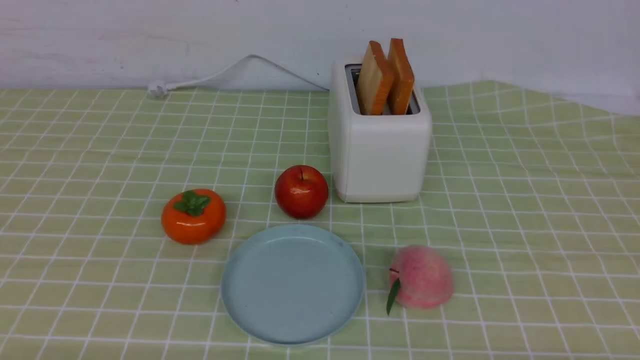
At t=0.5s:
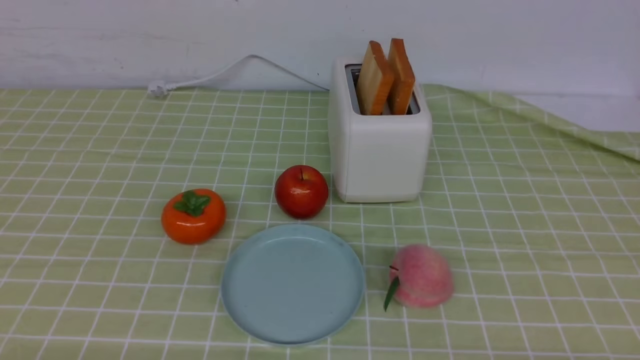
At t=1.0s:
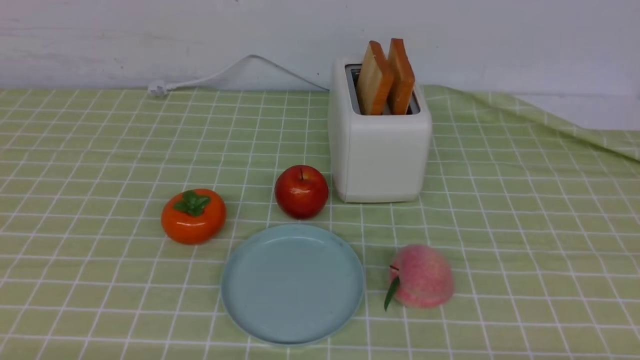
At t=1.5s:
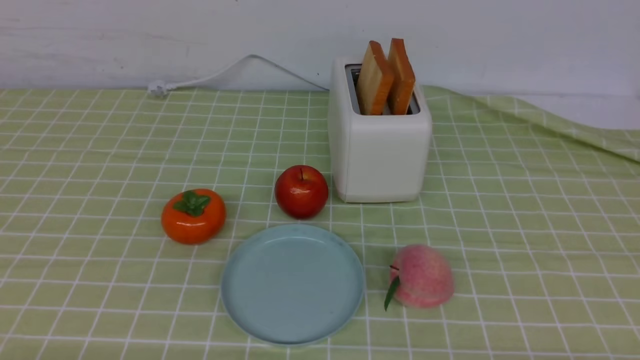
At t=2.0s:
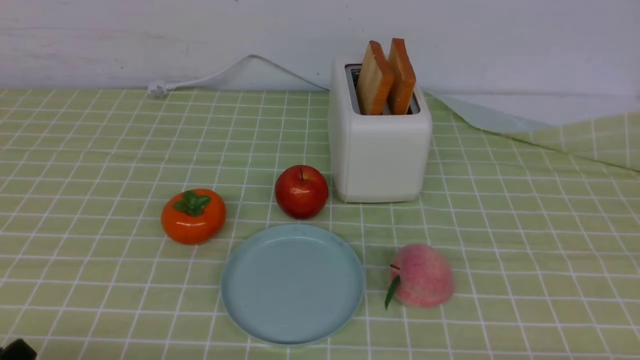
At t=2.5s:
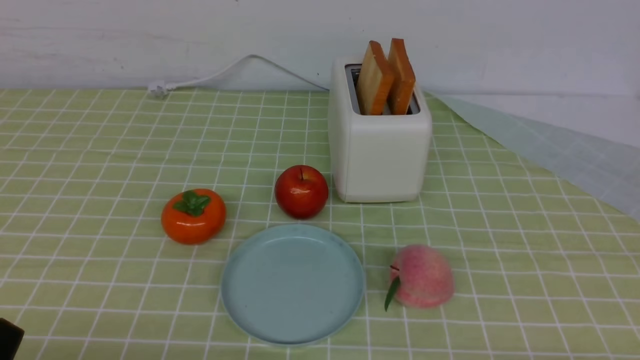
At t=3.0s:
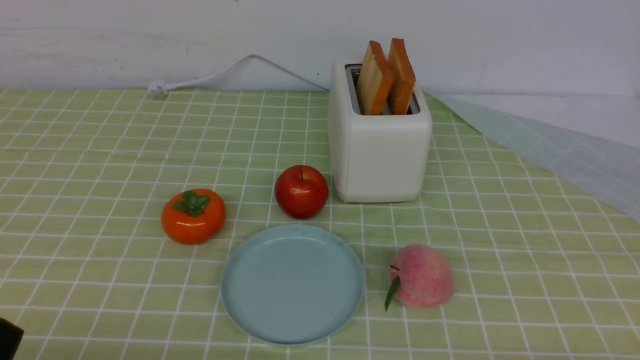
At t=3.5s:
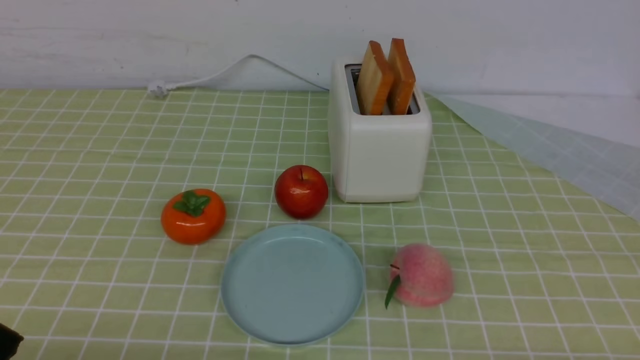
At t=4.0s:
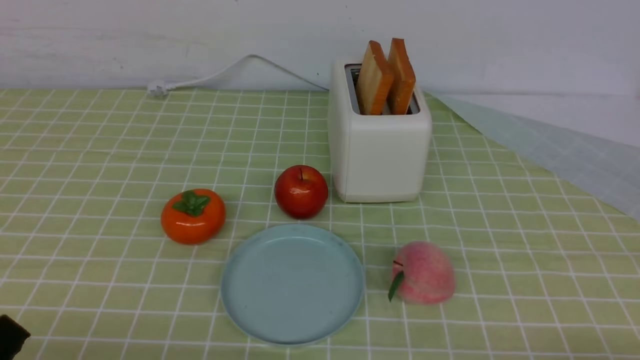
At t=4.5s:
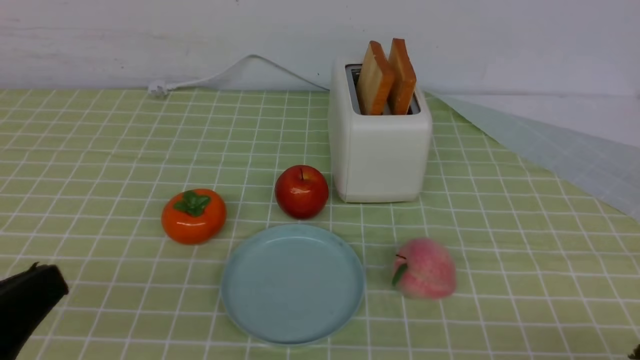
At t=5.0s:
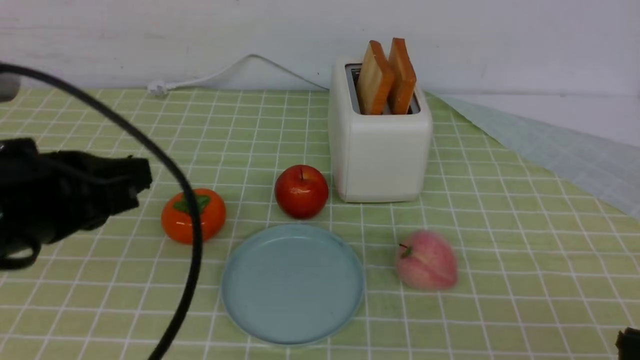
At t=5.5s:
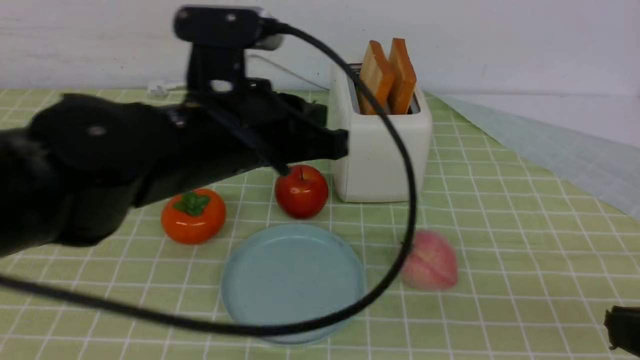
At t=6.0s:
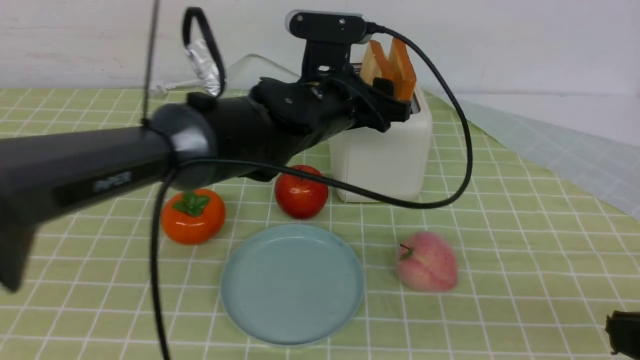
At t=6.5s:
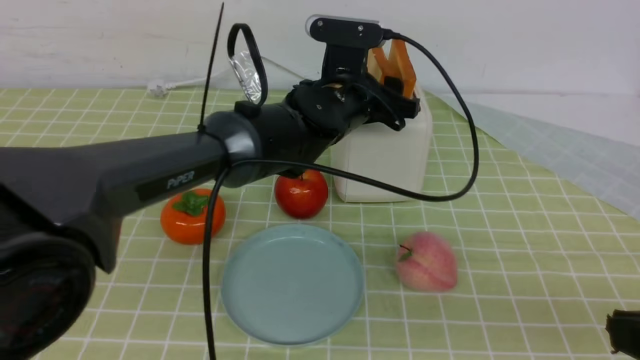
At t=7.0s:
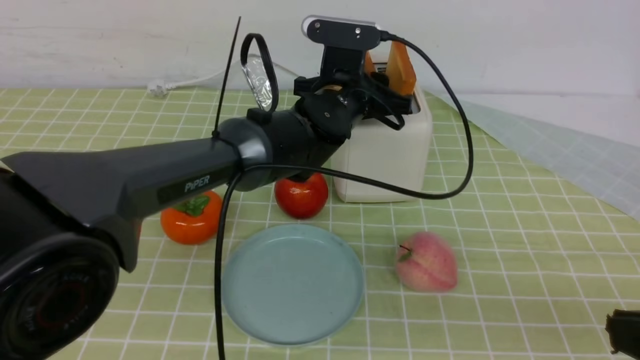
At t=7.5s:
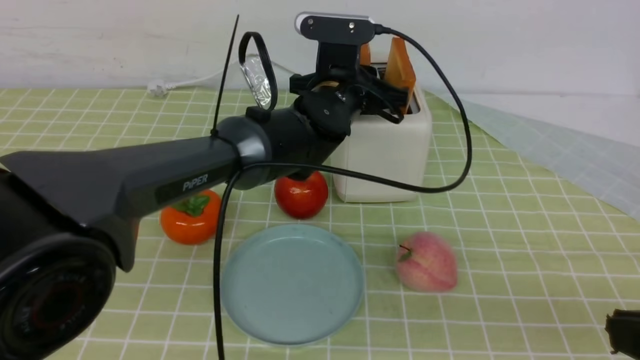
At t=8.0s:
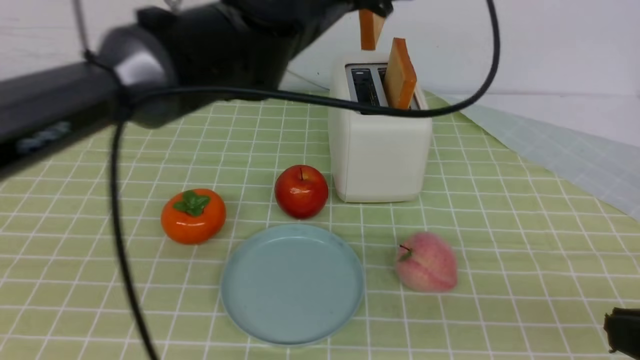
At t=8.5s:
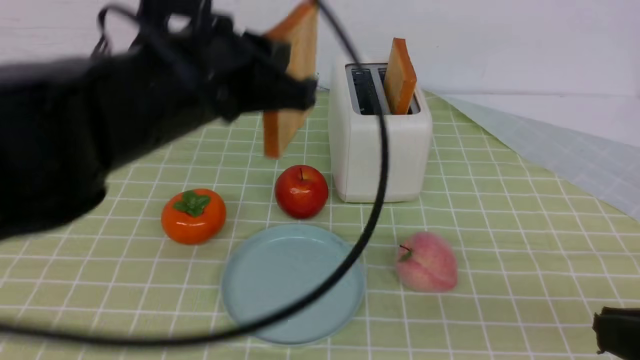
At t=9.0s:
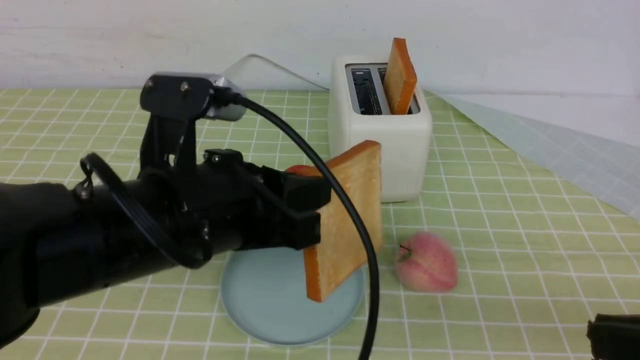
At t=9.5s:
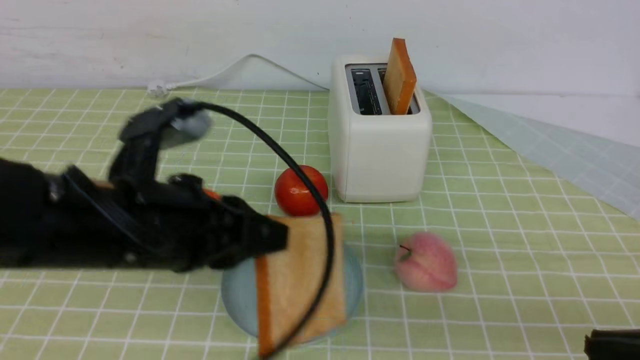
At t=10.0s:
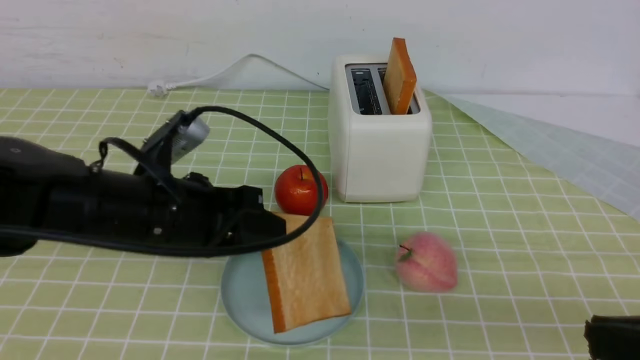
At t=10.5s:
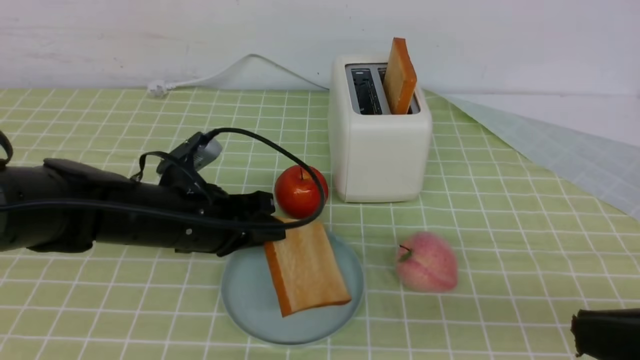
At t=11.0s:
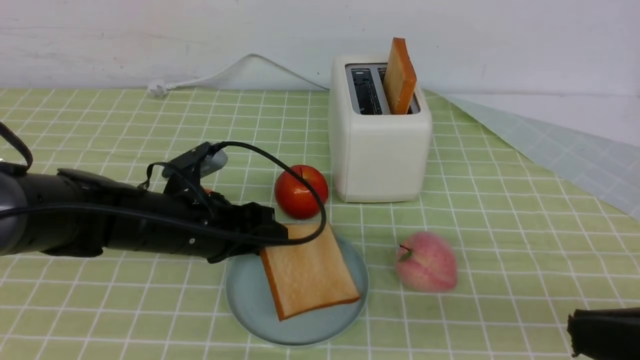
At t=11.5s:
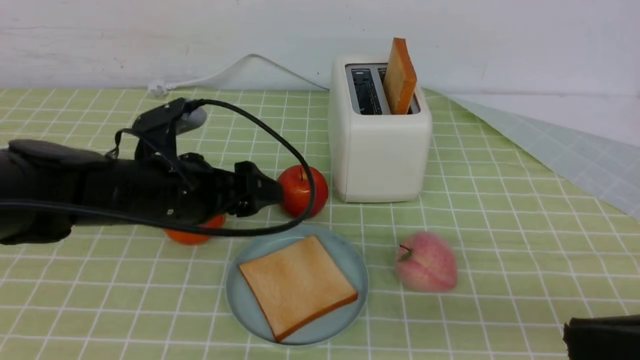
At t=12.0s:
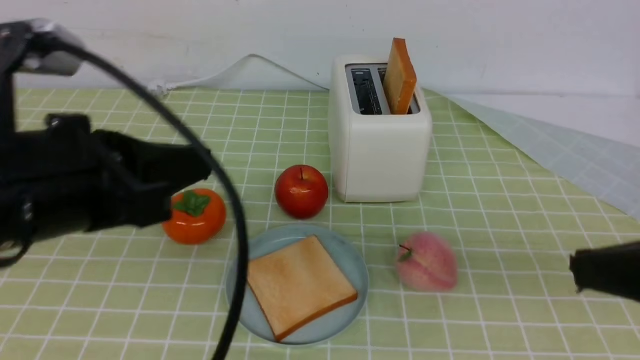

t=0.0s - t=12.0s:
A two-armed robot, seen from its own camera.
Task of the whole recording: take toasted bread from bread machine on green coffee tablecloth place on plate.
Step, t=0.0s - t=7.5s: use the left arm to take out a slice of bread.
Step, t=8.0s - t=11.5s: use the left arm to put a slice of bread into the empty plate.
t=0.0s - t=2.0s: The grippers make only small movements.
t=4.0s - t=6.0s: The left gripper is displaced forward and to the right by roughly 40 cm, and opens up; the right gripper moves upward, about 15 cm, and closes up.
t=6.0s - t=8.0s: The left gripper is displaced upward by about 10 cm, and closes.
t=8.0s - t=10.0s: The left gripper heads downward, to the left and backward, covering some 20 cm.
t=10.0s - t=12.0s: The left gripper goes some 15 cm backward and upward, and opens, then closes again. Meanwhile the right gripper heads forward, covering about 5 cm.

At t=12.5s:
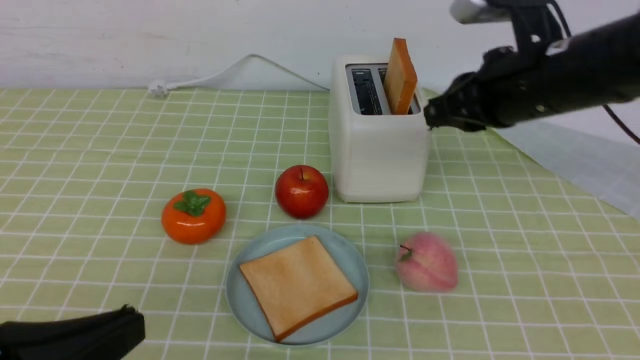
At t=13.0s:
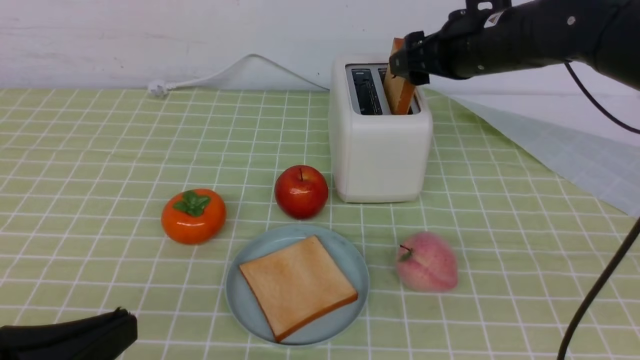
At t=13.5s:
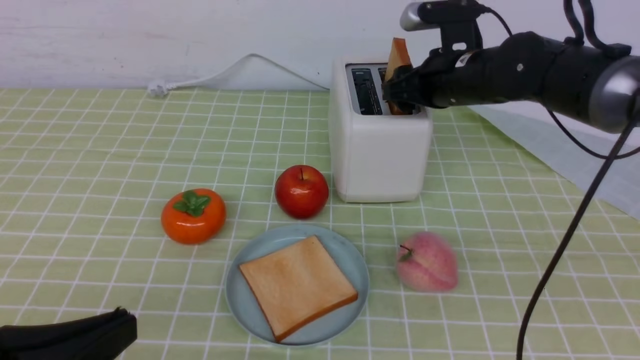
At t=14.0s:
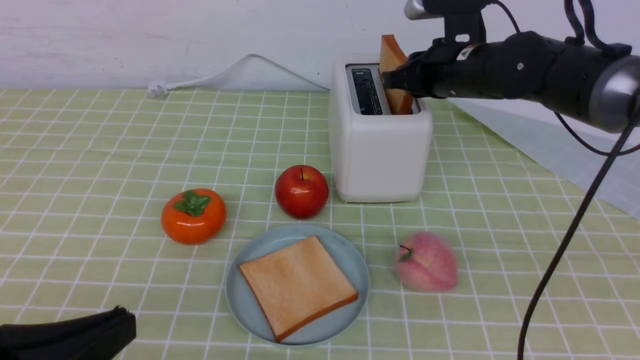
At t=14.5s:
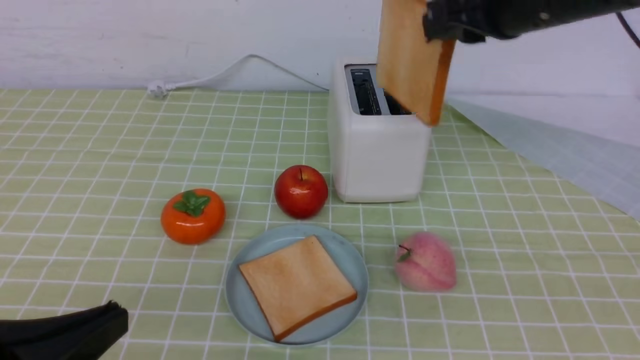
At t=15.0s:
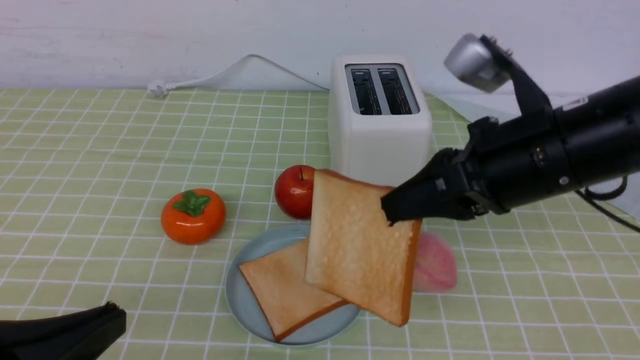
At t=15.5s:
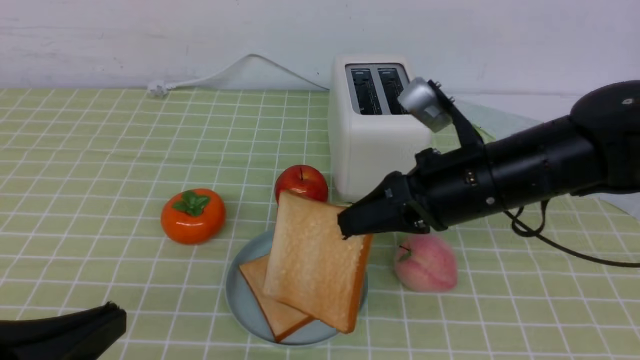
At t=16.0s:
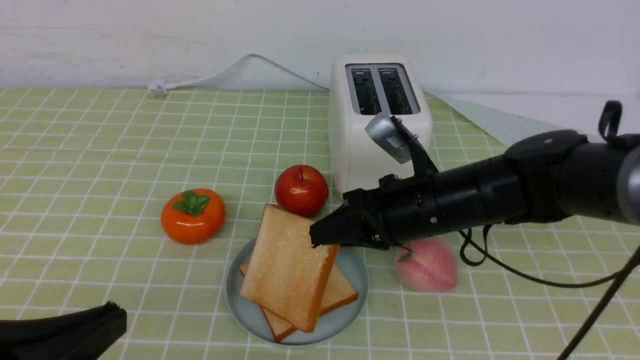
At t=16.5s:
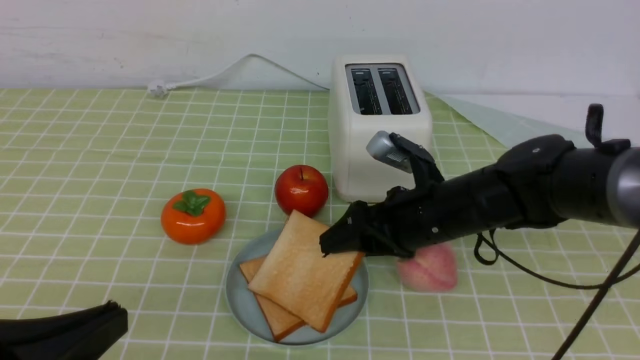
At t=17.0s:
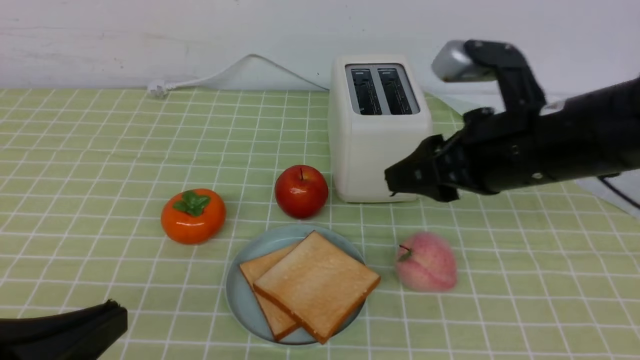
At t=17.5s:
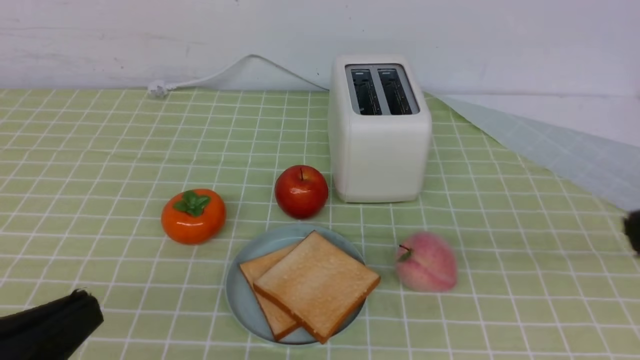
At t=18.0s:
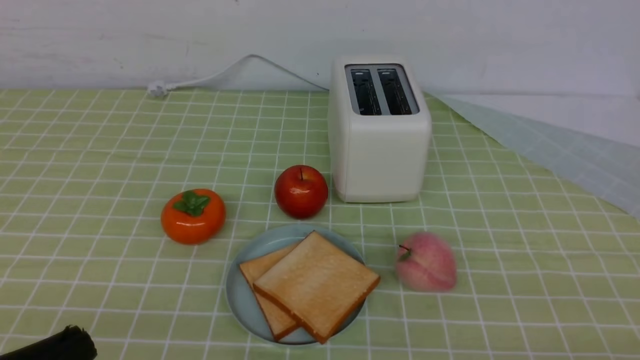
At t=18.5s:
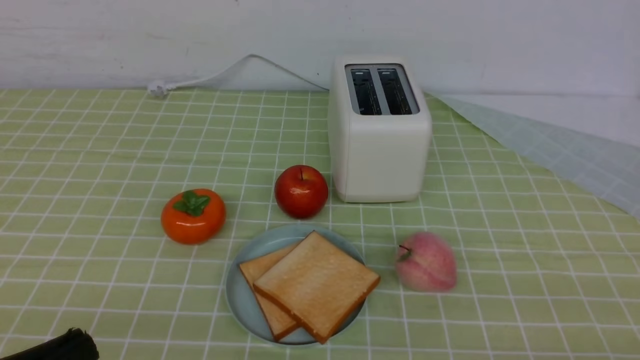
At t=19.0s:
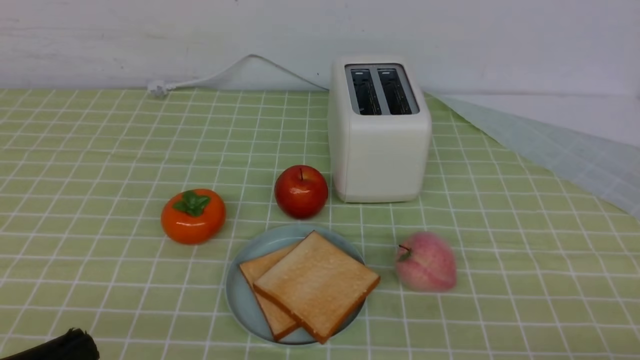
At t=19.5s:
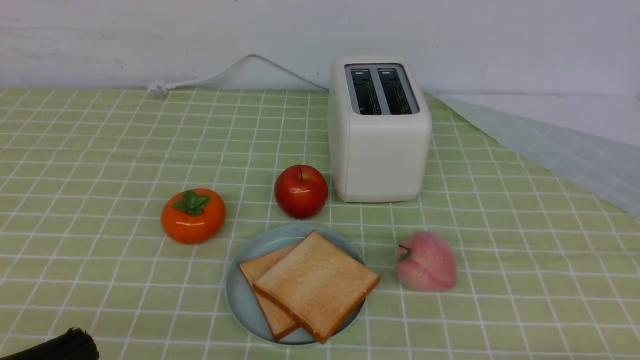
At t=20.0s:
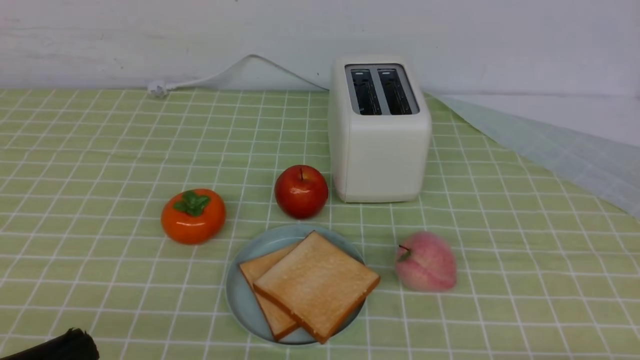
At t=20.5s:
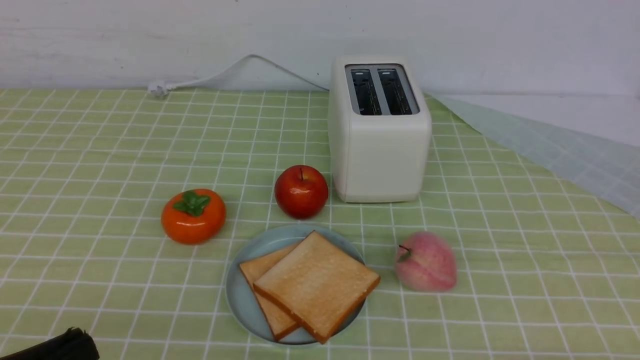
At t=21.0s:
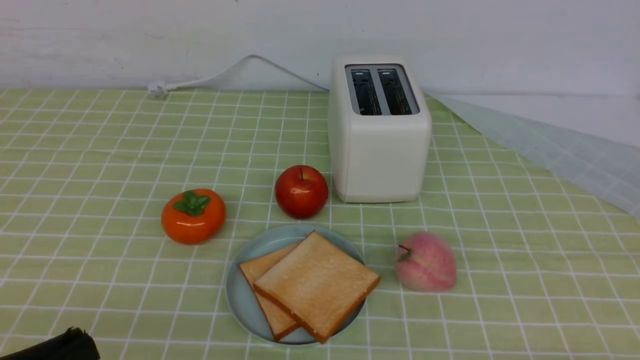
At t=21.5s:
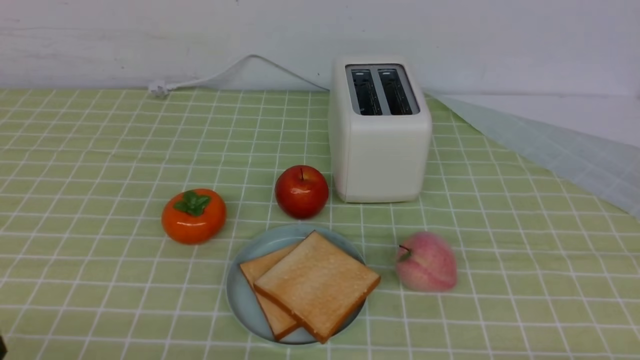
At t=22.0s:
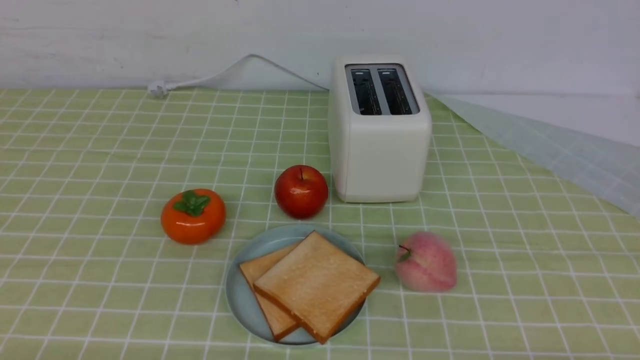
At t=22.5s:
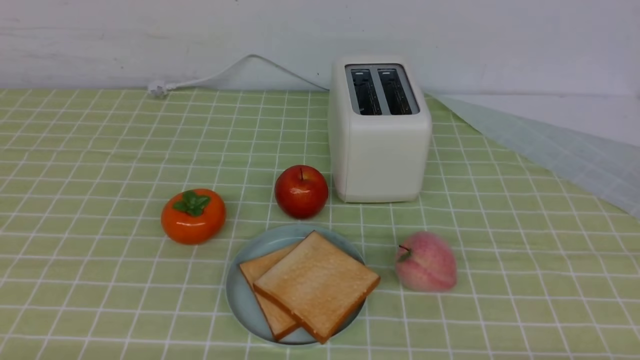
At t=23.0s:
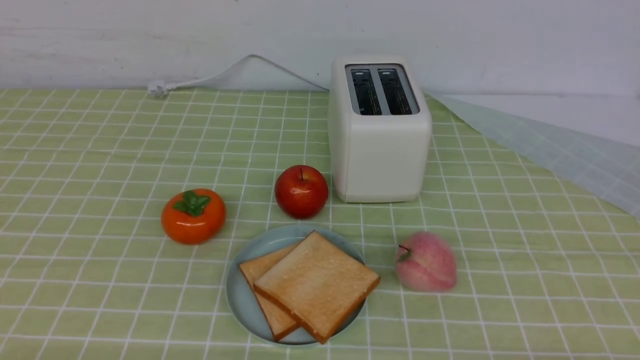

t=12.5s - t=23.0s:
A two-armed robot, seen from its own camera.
Task of the whole recording: take toasted bread from bread machine on green coffee tablecloth place on plate.
Step, t=12.5s - t=14.0s: use the right arm to take out a slice of bread.
Step, t=14.5s - t=16.5s: use the right arm to put a slice of bread into the plate.
t=12.5s - t=14.5s: The right gripper reaches some 10 cm forward, then returns, and opens, then closes once more.
t=14.5s - t=16.5s: The right gripper shifts approximately 20 cm downward, and opens.
t=16.5s - t=19.0s: The right gripper goes some 35 cm backward and to the right, and closes up.
t=21.0s - t=23.0s: The left gripper heads downward, covering approximately 10 cm.
